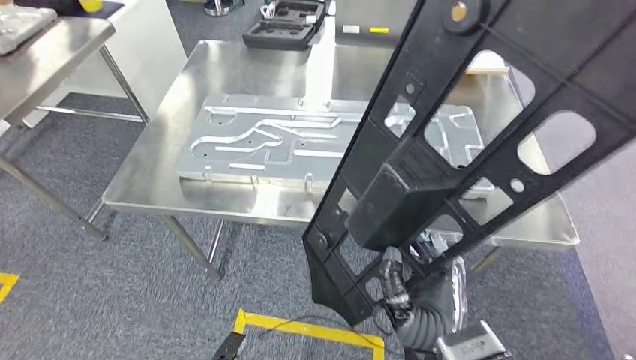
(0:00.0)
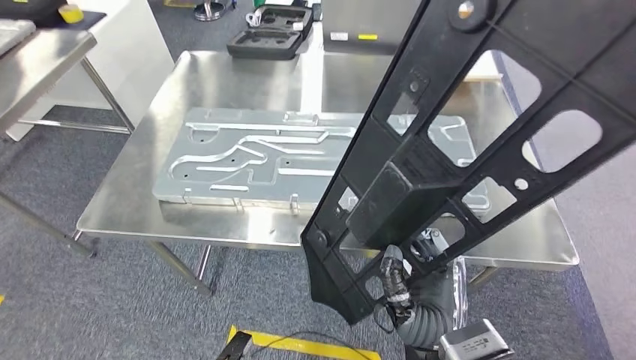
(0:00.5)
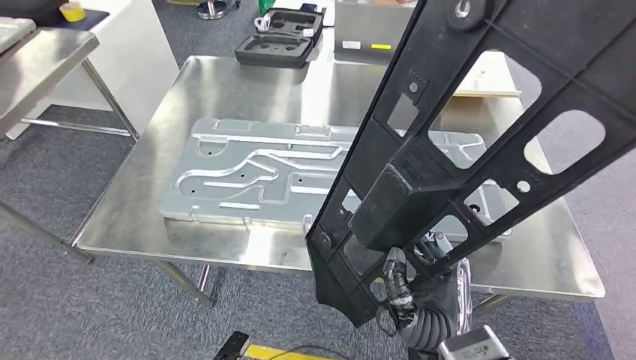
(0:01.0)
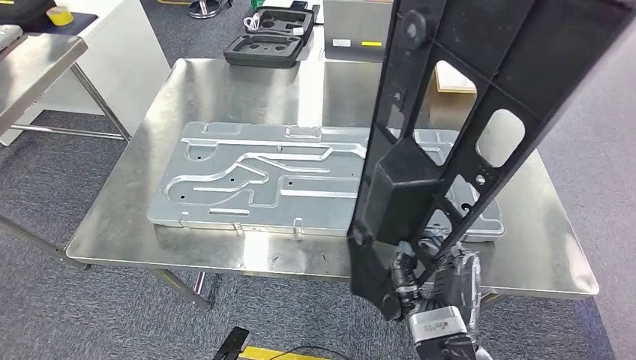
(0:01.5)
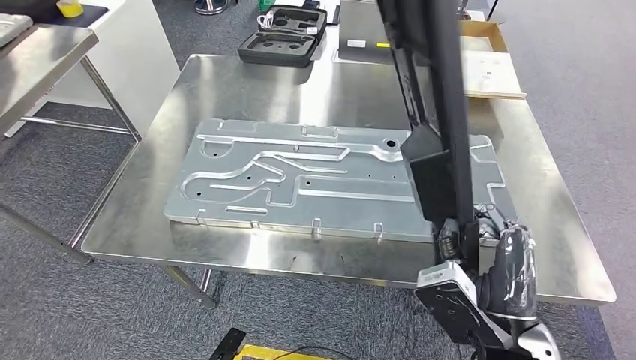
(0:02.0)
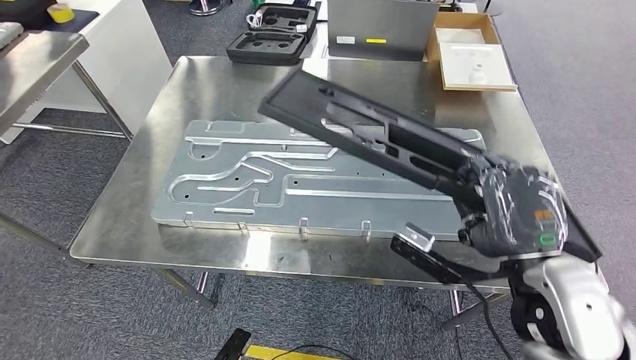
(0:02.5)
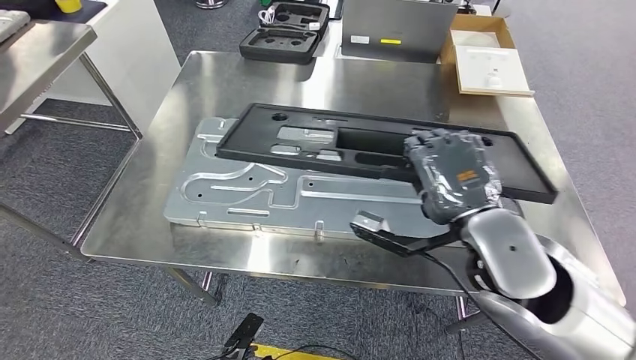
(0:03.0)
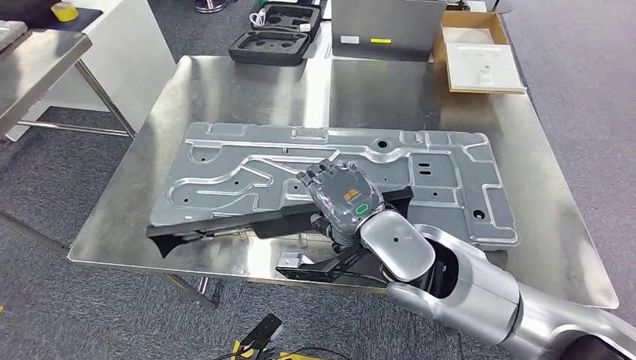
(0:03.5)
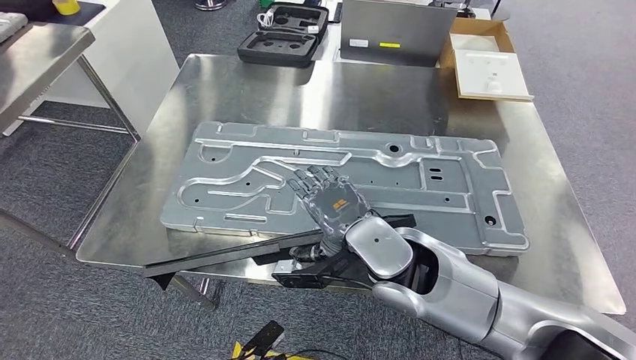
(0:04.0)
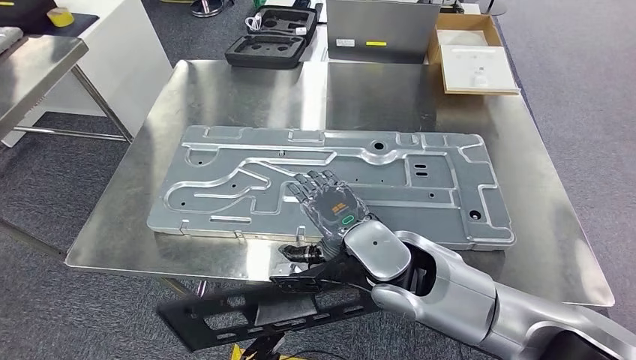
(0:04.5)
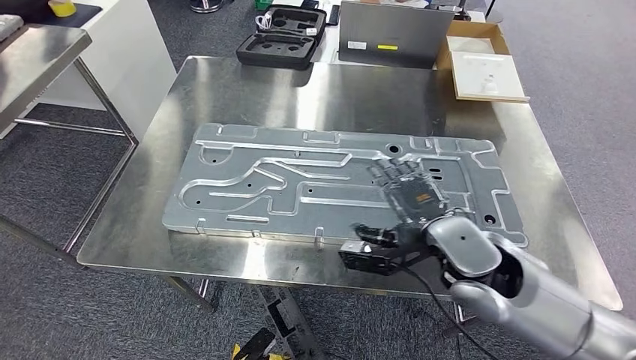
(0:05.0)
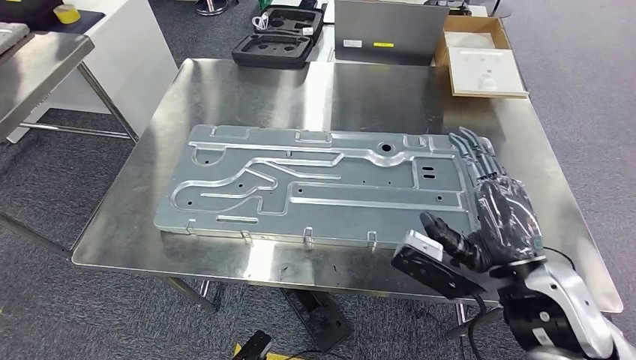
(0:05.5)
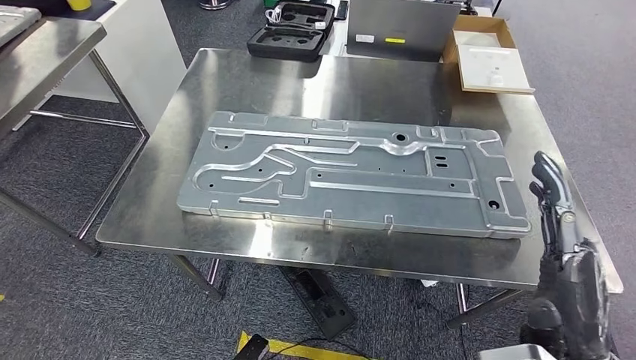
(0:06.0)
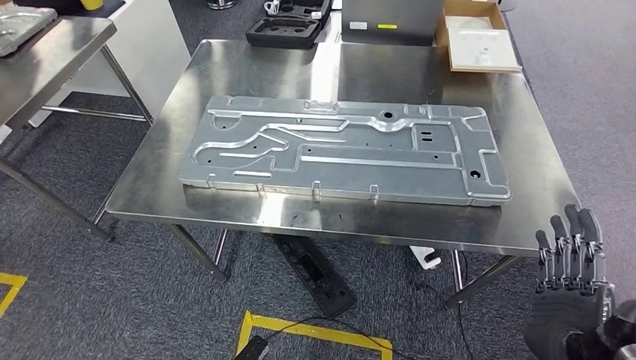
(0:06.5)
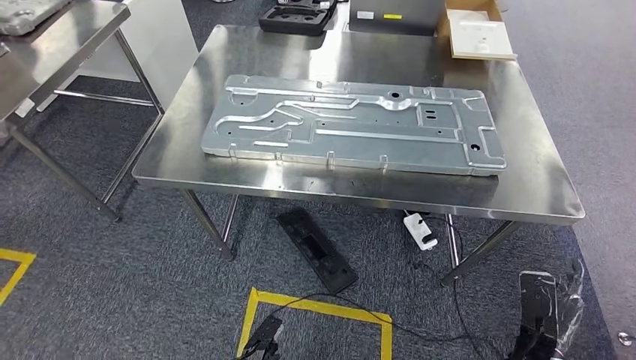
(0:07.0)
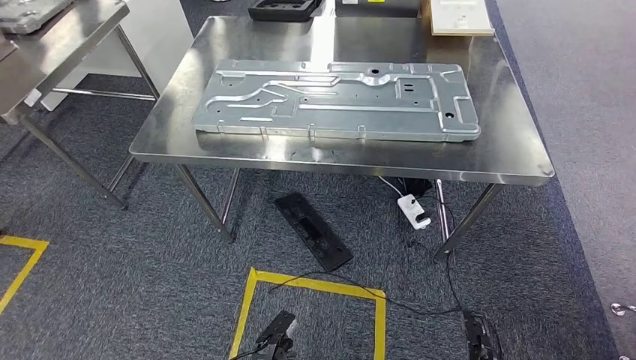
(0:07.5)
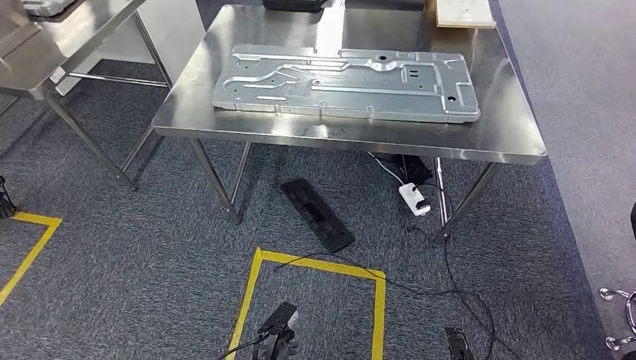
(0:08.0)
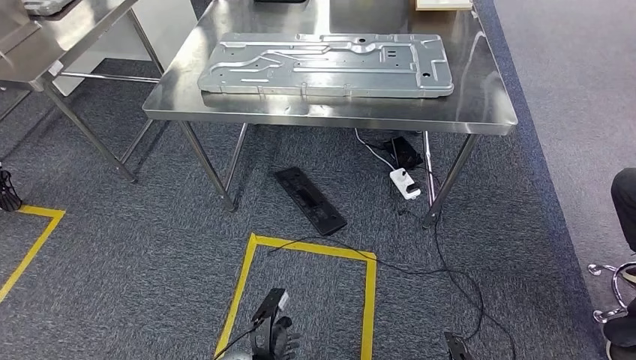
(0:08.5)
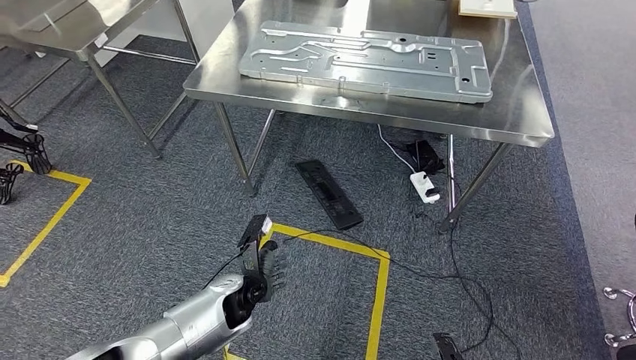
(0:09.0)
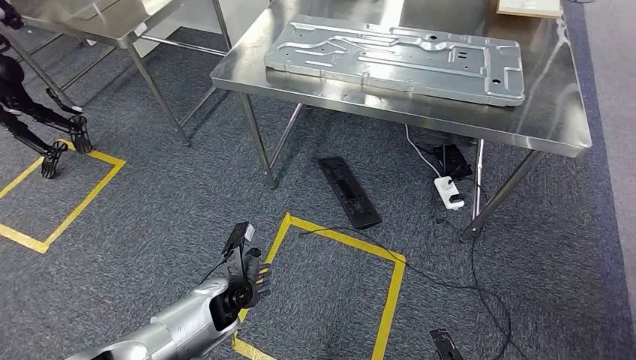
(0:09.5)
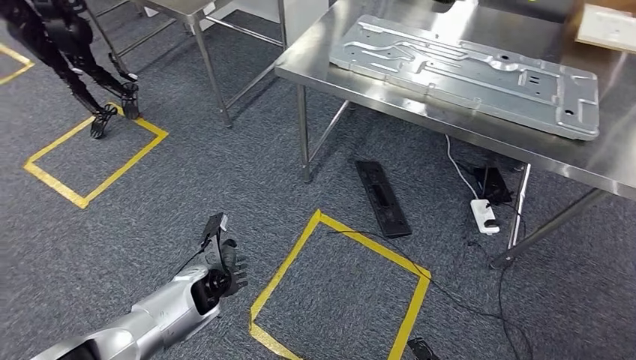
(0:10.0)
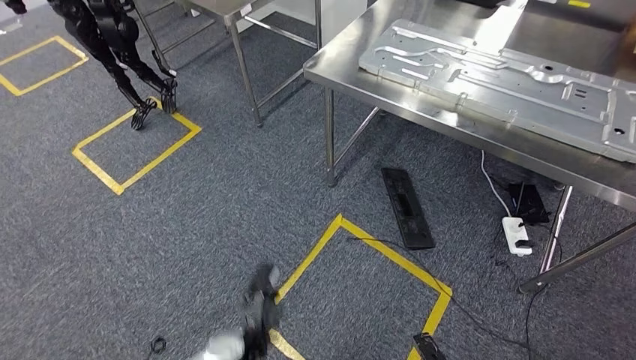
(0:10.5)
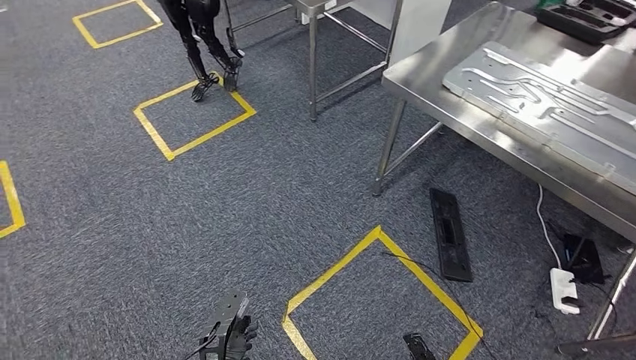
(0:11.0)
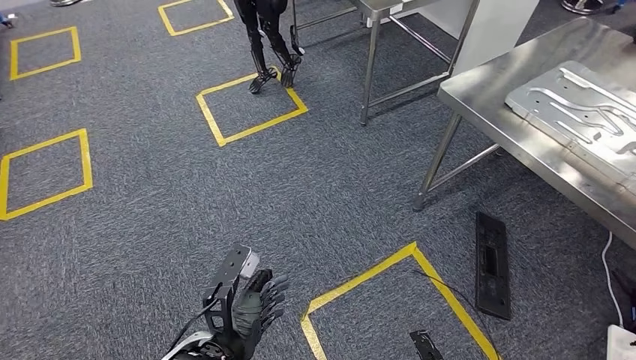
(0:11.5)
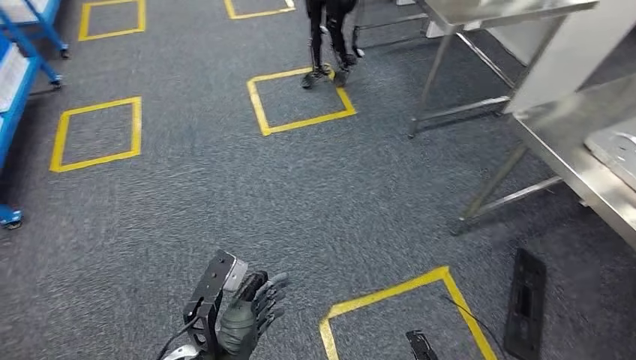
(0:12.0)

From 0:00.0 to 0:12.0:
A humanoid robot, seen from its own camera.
Step, from 0:01.0 to 0:07.0: Insert the large material into the corresponding slot on the workbench.

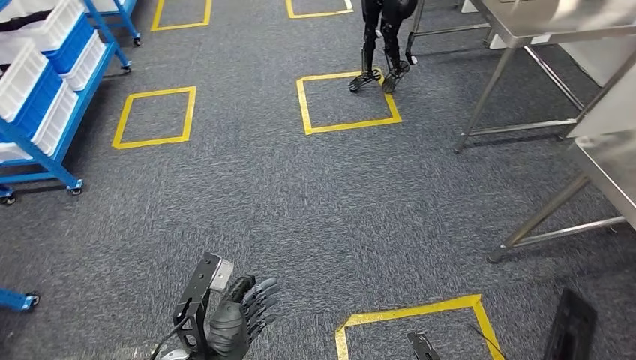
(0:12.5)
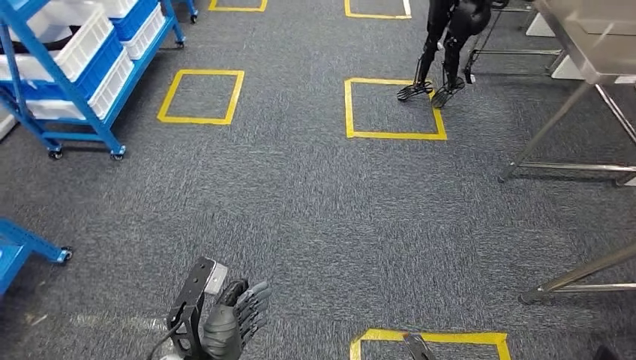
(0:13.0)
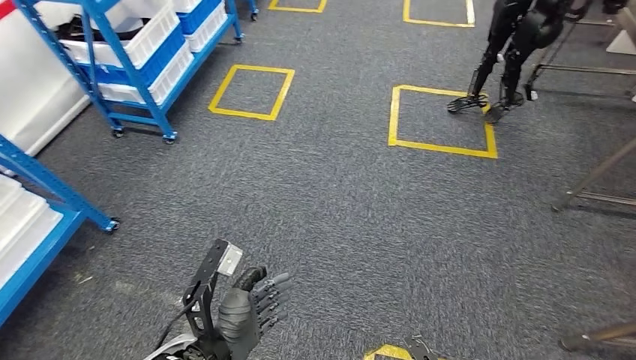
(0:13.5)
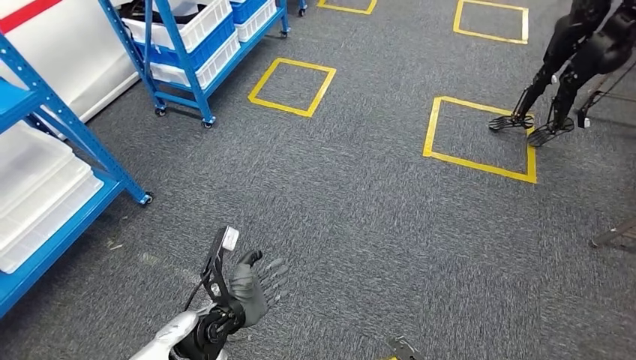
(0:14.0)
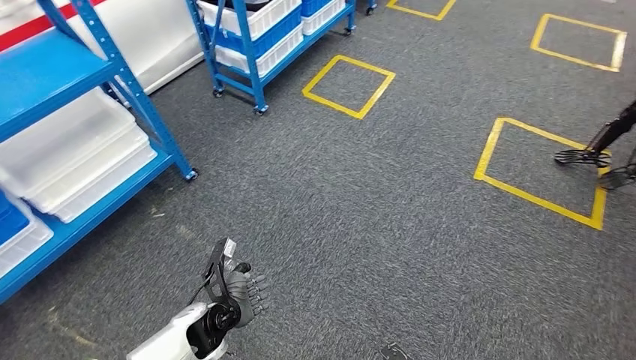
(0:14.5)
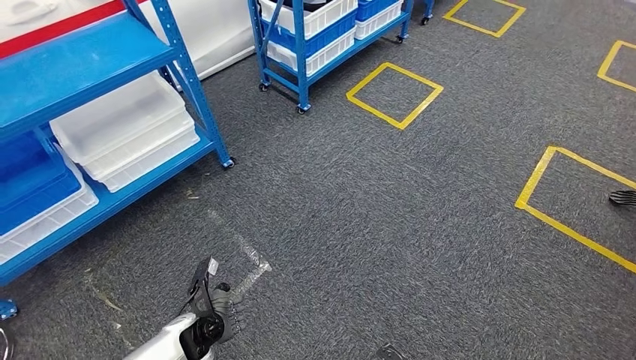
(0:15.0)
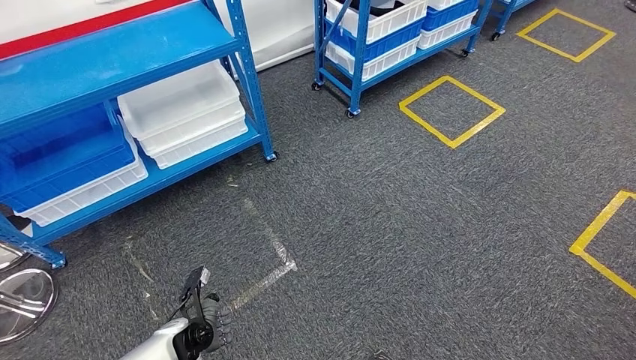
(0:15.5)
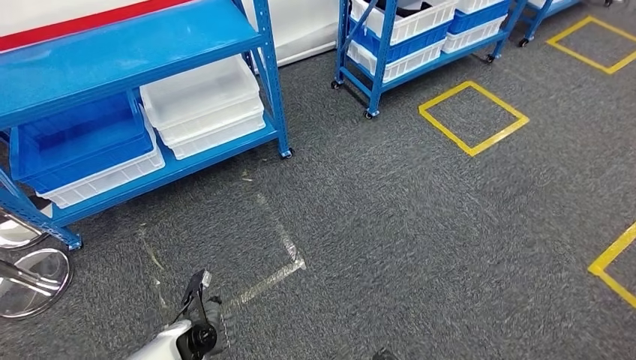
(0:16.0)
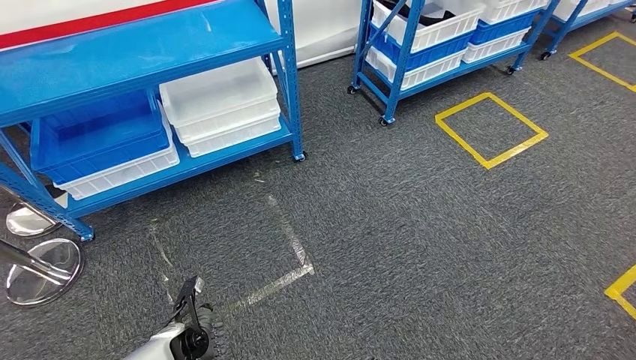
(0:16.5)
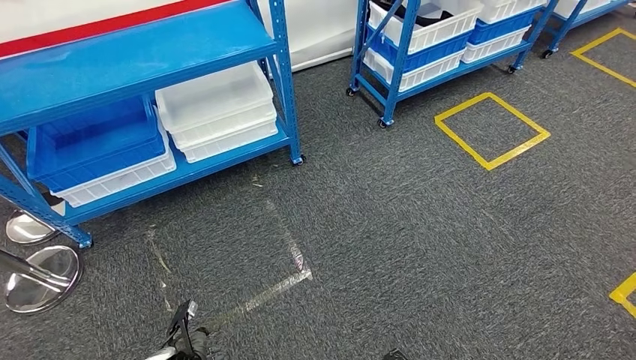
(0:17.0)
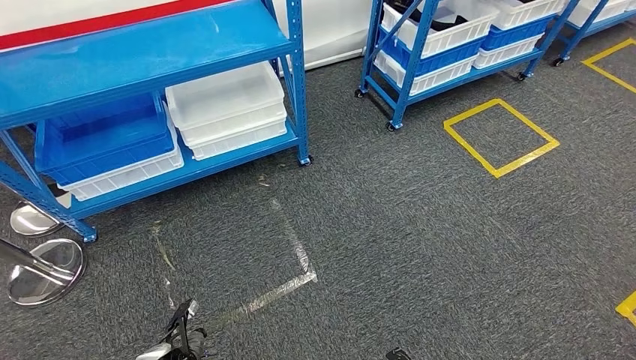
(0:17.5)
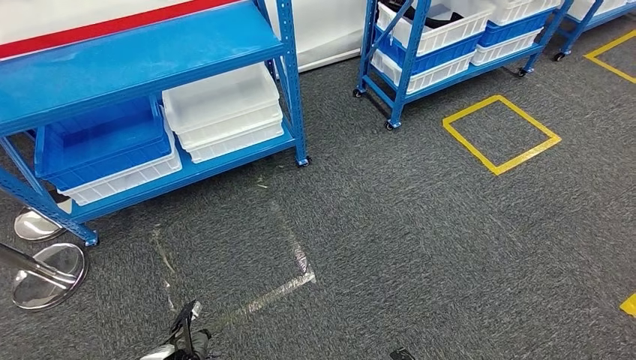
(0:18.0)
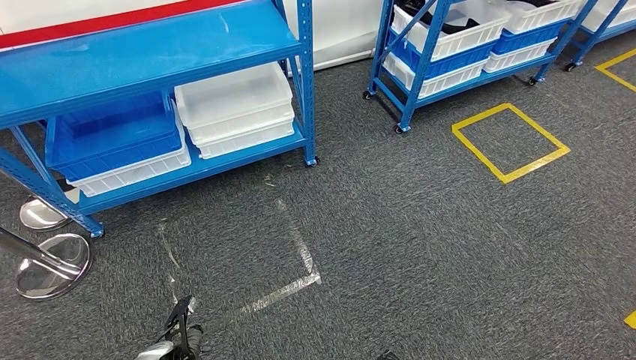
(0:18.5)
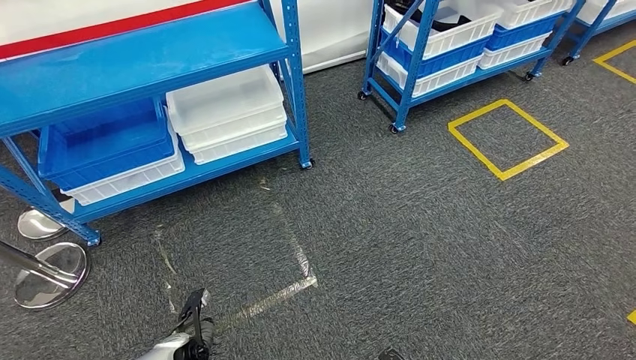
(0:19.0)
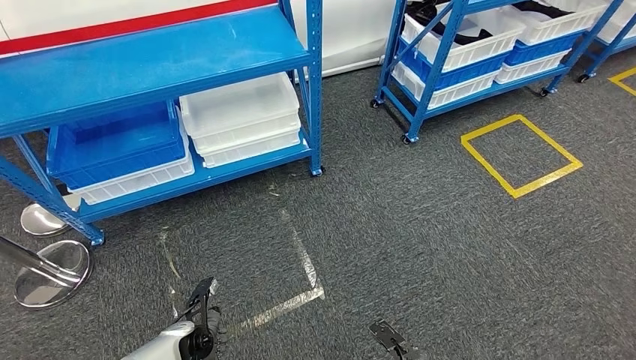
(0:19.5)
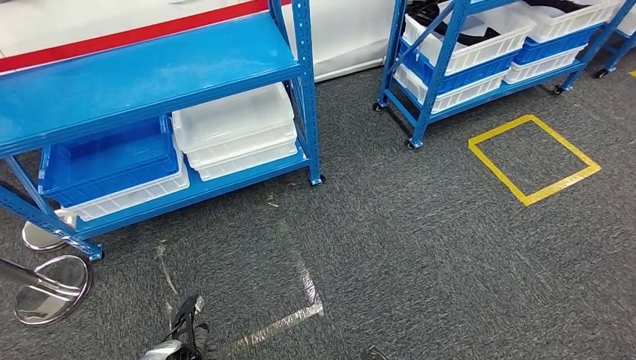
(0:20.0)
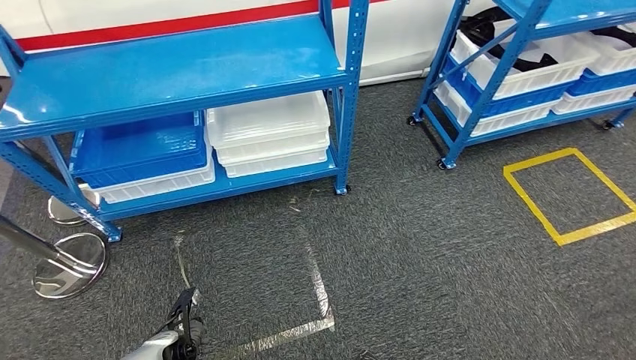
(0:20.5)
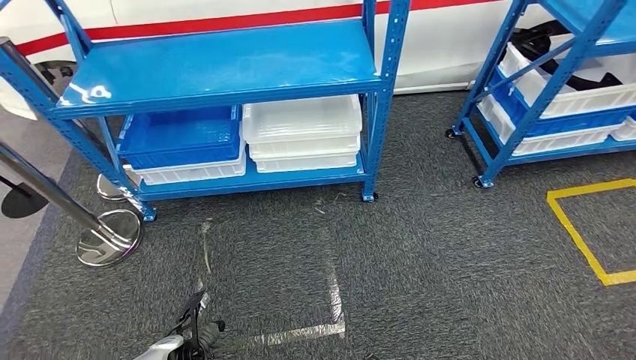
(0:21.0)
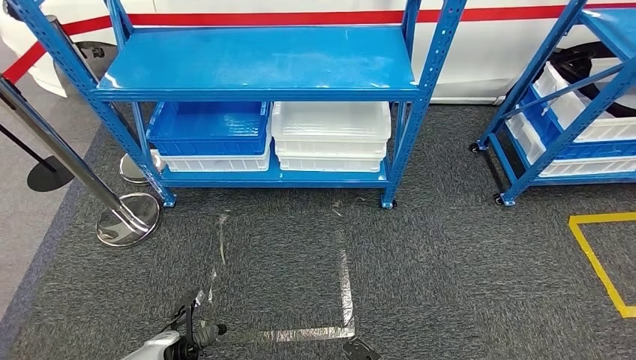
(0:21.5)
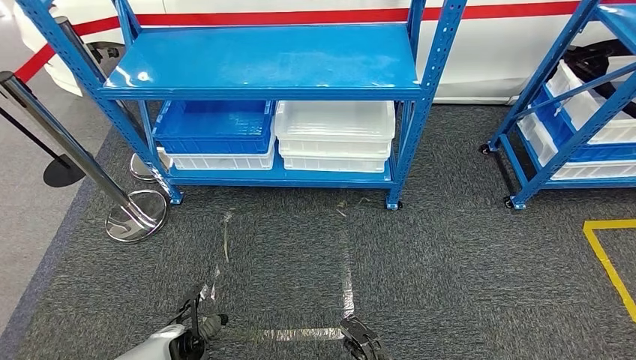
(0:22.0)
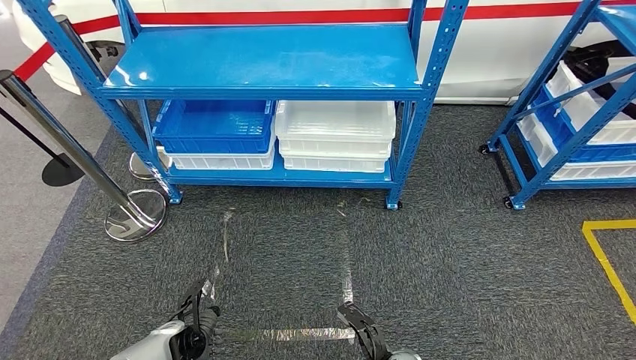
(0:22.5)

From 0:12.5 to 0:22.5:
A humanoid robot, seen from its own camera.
Step, from 0:12.5 to 0:22.5: Move to the initial position of the shelf.
